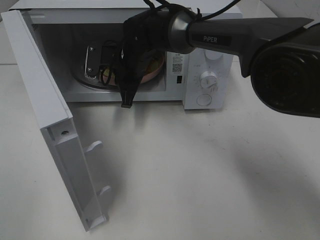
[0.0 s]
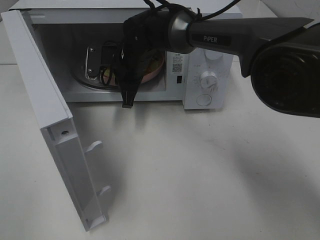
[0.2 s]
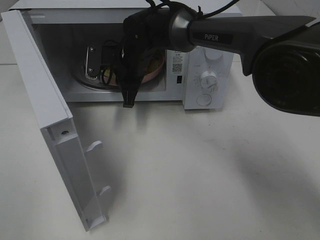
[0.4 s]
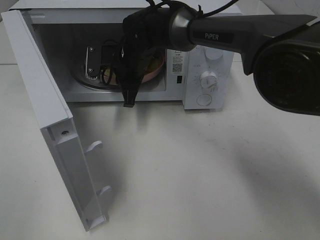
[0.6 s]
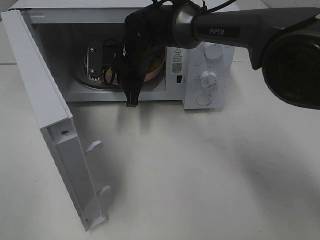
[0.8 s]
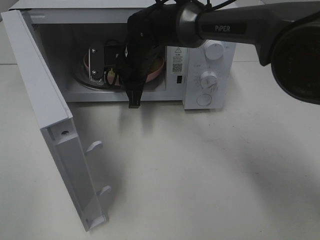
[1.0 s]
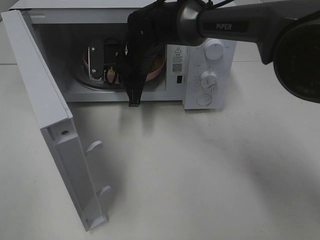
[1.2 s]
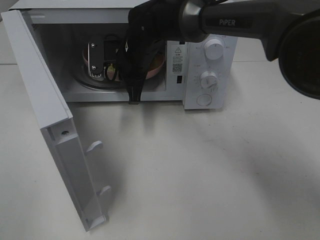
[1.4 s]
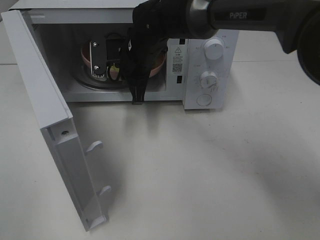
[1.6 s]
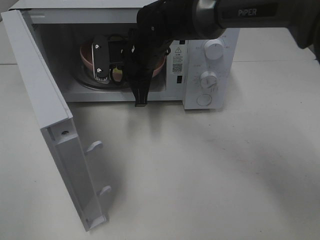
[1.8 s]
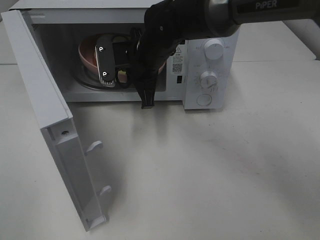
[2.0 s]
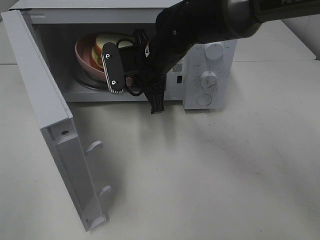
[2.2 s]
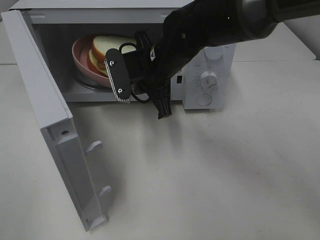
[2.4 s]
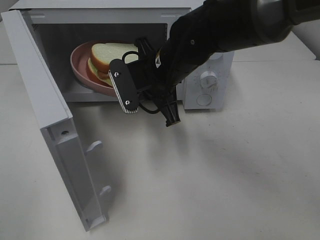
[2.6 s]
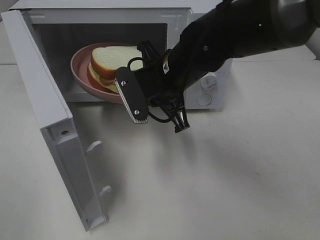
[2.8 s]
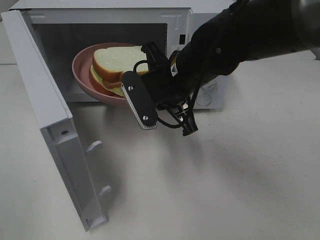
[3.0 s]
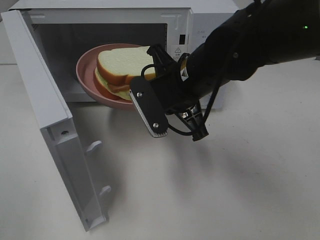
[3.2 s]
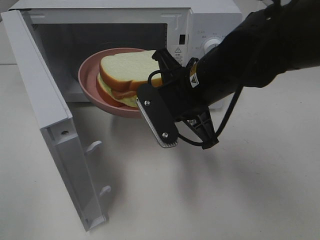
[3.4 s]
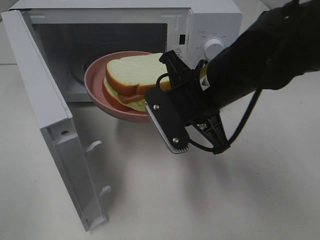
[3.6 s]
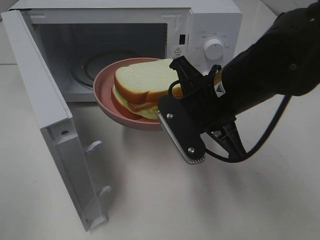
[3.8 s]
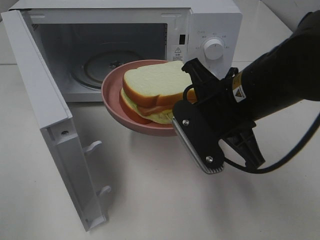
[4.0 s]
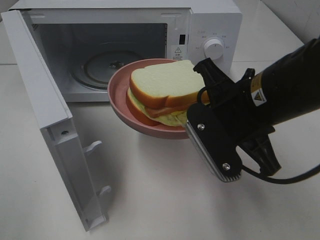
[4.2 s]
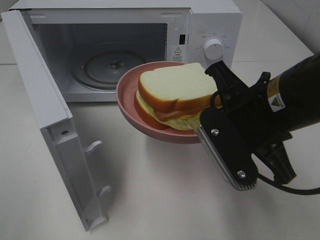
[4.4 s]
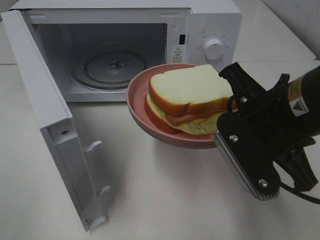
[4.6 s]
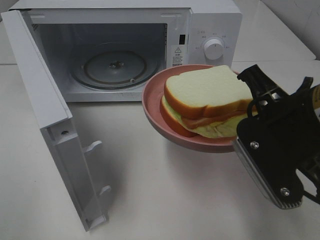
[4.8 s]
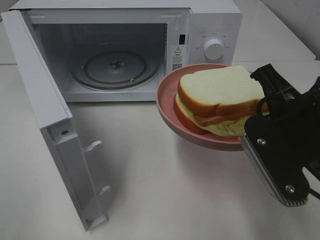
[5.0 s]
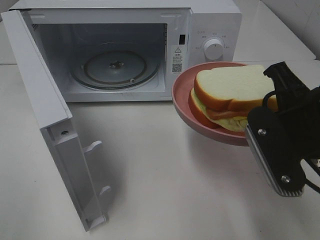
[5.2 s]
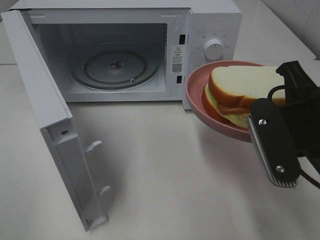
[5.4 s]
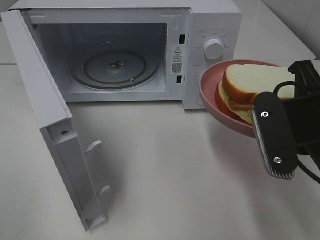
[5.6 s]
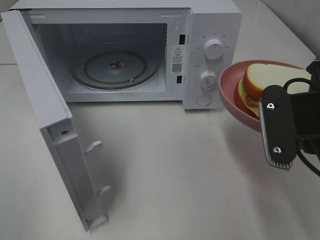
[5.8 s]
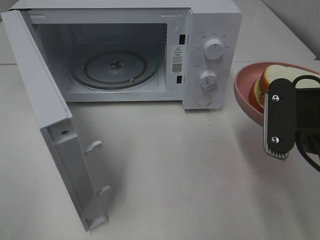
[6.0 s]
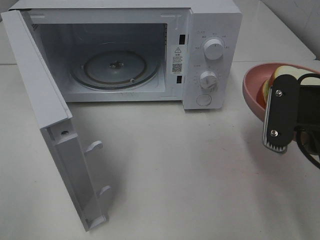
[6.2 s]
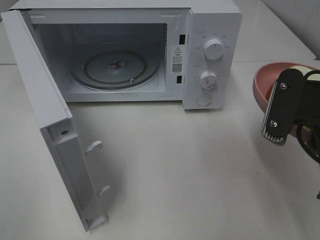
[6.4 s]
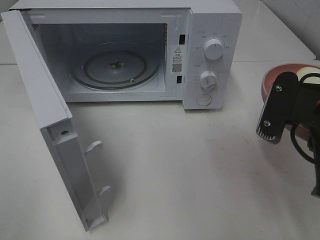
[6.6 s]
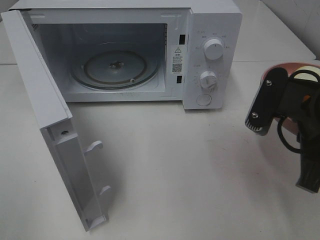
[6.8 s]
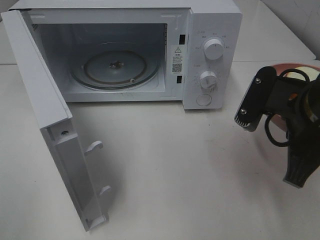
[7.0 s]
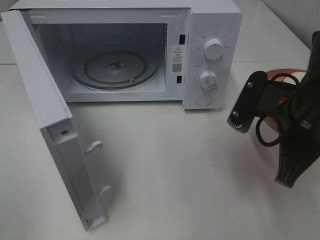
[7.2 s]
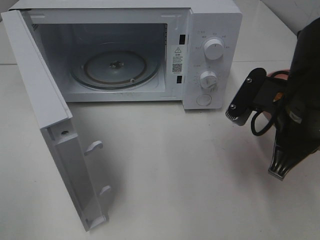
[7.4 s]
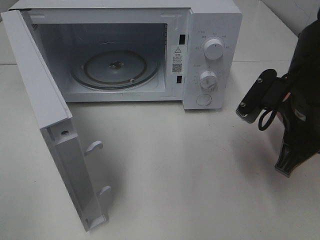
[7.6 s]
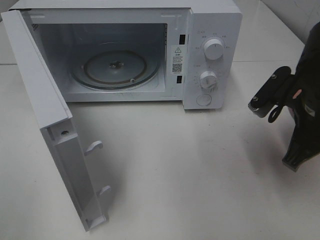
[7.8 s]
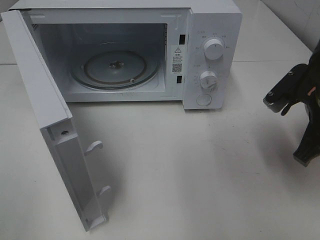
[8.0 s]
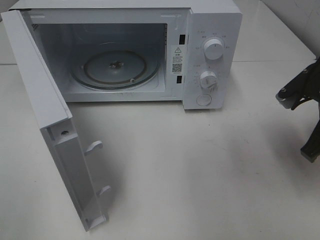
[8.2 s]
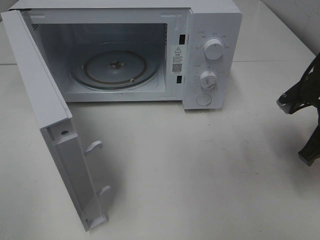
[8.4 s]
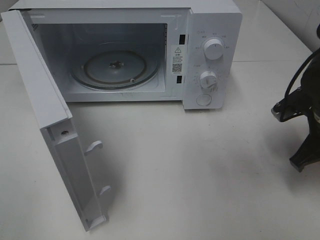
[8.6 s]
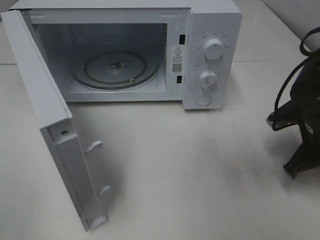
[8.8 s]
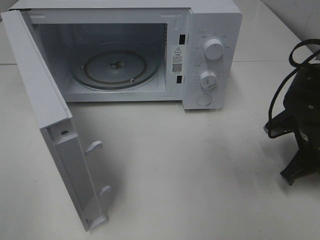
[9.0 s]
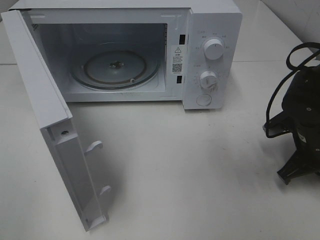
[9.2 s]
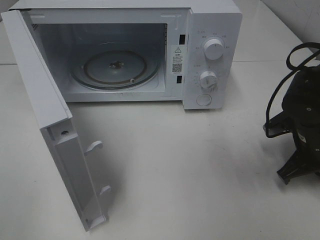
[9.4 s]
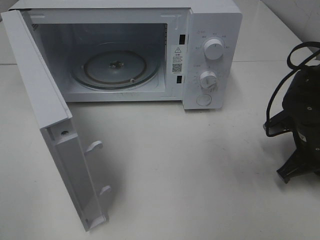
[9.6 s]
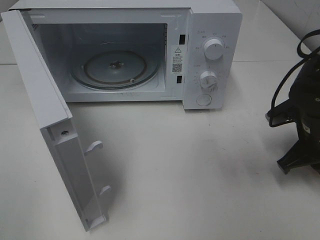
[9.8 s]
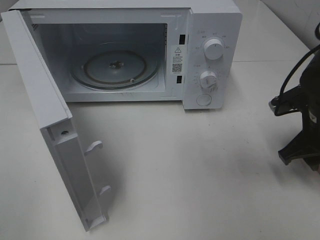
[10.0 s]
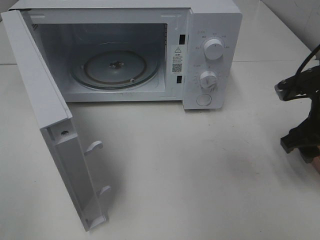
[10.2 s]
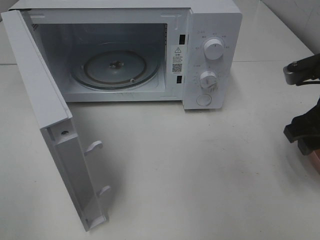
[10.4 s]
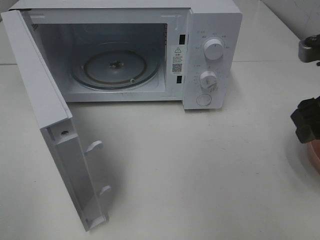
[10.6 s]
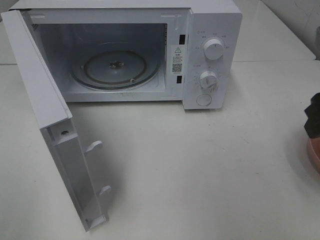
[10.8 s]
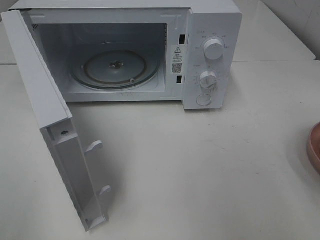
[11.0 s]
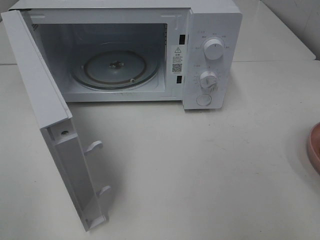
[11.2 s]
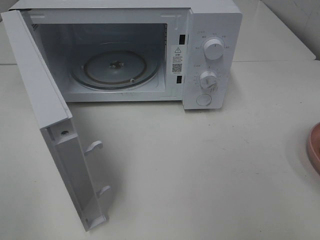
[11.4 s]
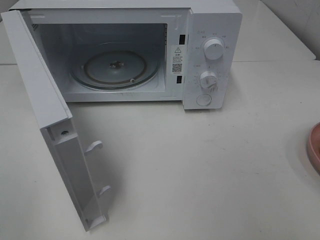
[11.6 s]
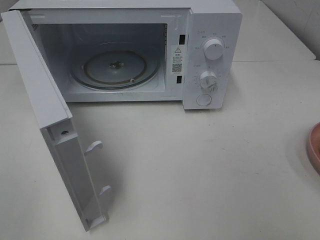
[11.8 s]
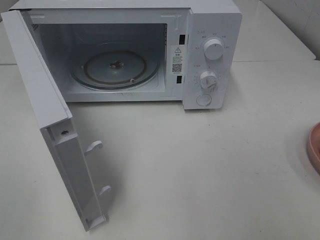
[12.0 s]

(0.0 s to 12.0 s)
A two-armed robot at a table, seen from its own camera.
Task of the whole recording: Heat Sandwich.
Step, 1.4 s - 9.8 s: Right hand: place the plate on the table.
0.0 s - 1.6 s: The grippers move only a little.
1.6 s - 3.0 s: The right gripper goes some 15 cm backward and to the right.
3.0 s - 4.4 s: The right gripper shifts about 15 cm backward and to the right.
4.4 s - 6.0 s: The right gripper moves to the right, about 5 cm.
6.0 s - 7.6 s: The right gripper shifts some 5 cm forward.
7.6 s - 9.0 s: The right gripper heads downward and to the right, covering some 10 cm.
9.0 s - 10.4 s: The right gripper moves upward, approximately 10 cm, and opens its fingers.
10.4 s - 12.0 s: The right gripper travels backward by some 20 cm.

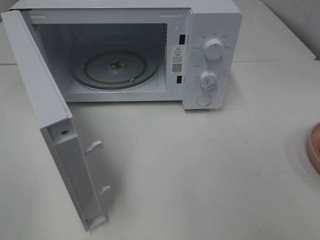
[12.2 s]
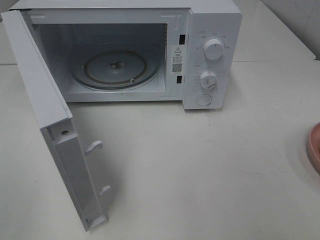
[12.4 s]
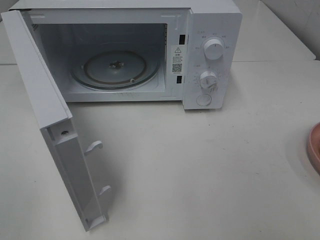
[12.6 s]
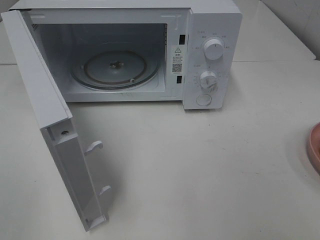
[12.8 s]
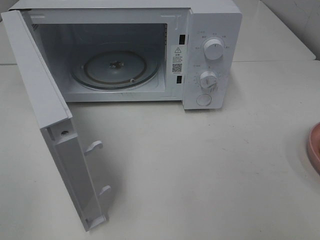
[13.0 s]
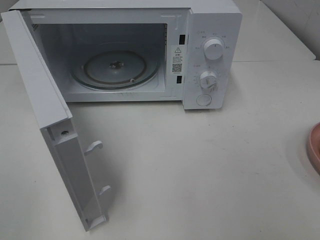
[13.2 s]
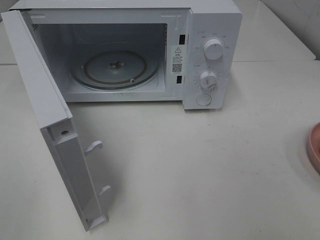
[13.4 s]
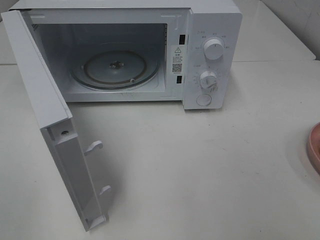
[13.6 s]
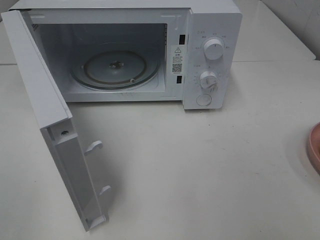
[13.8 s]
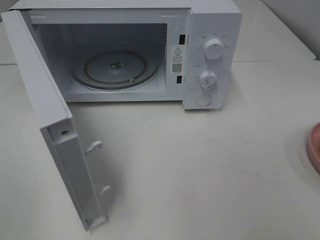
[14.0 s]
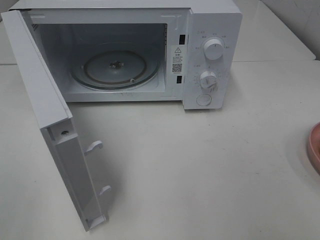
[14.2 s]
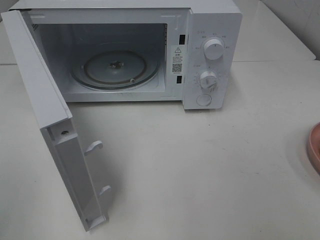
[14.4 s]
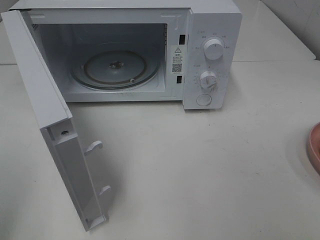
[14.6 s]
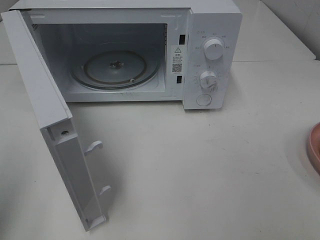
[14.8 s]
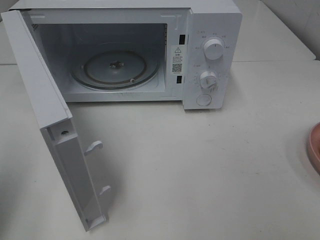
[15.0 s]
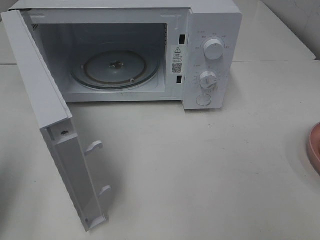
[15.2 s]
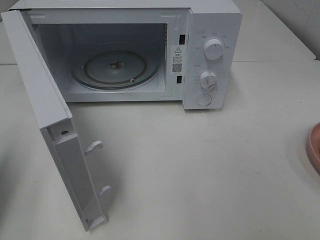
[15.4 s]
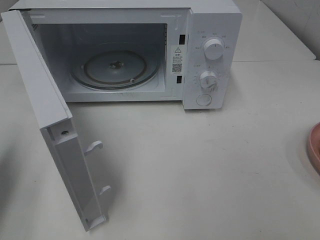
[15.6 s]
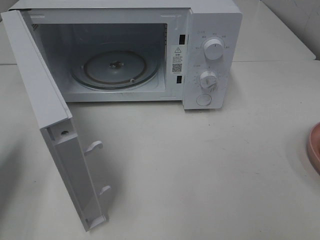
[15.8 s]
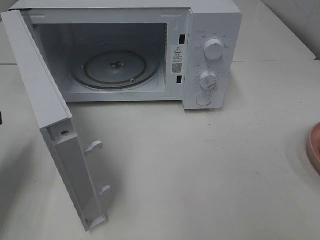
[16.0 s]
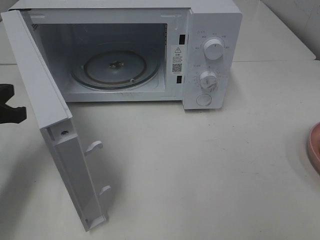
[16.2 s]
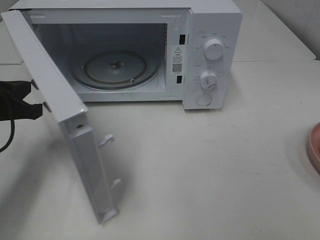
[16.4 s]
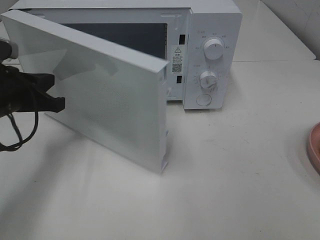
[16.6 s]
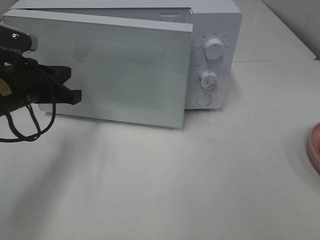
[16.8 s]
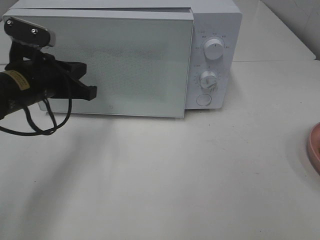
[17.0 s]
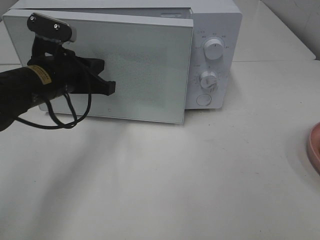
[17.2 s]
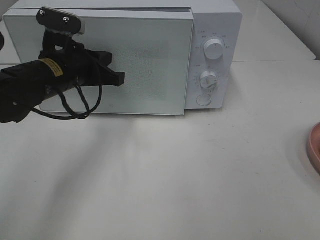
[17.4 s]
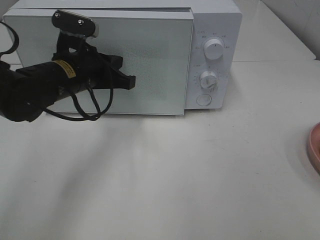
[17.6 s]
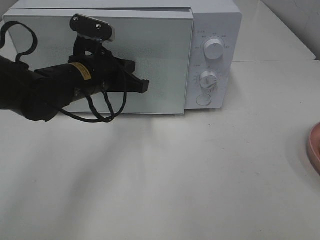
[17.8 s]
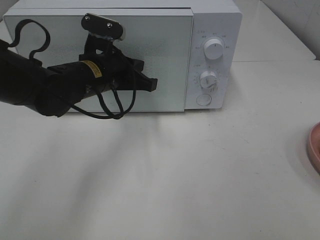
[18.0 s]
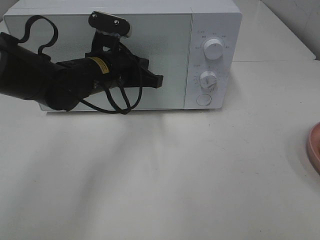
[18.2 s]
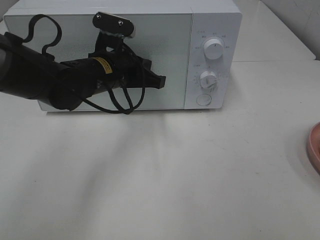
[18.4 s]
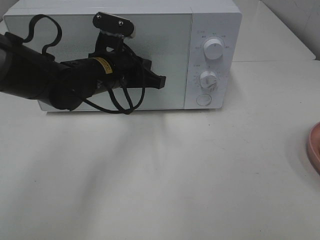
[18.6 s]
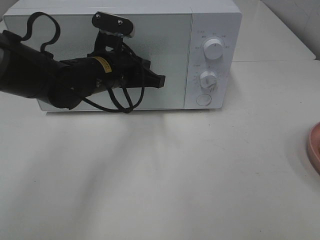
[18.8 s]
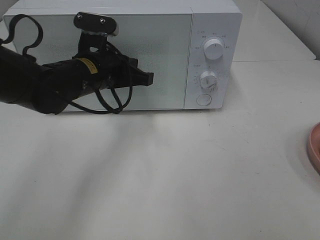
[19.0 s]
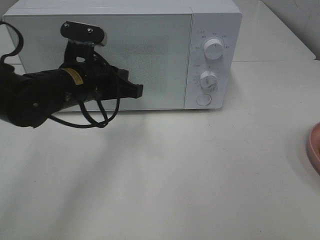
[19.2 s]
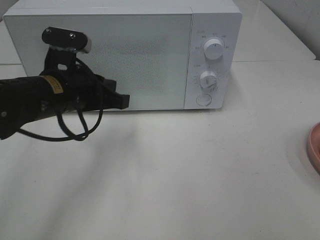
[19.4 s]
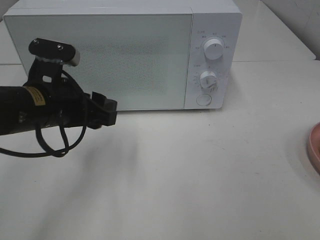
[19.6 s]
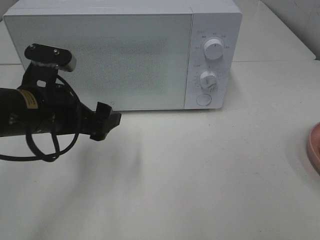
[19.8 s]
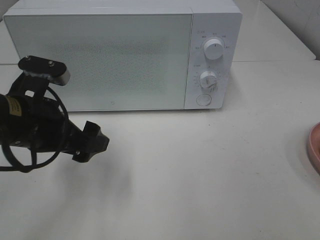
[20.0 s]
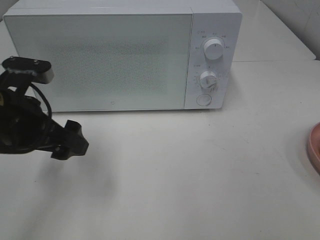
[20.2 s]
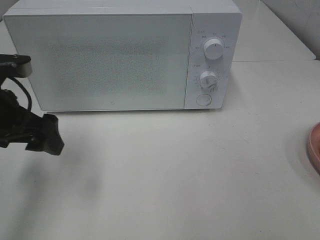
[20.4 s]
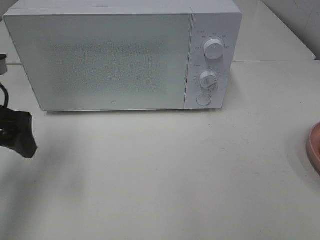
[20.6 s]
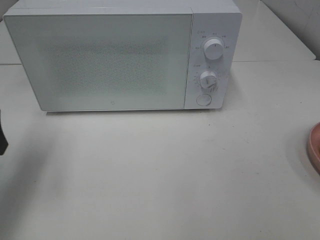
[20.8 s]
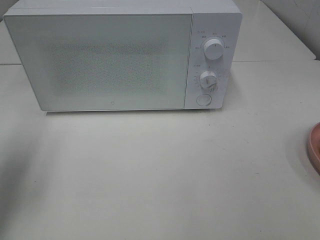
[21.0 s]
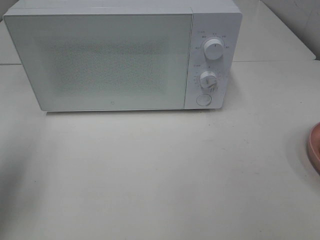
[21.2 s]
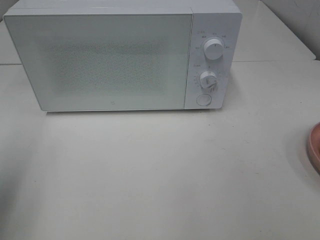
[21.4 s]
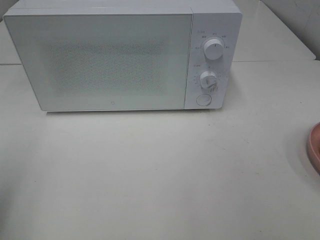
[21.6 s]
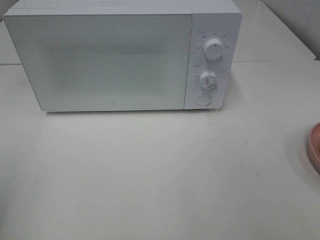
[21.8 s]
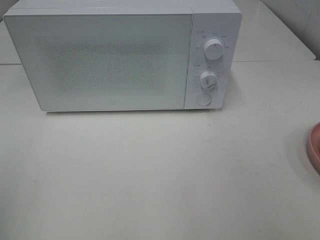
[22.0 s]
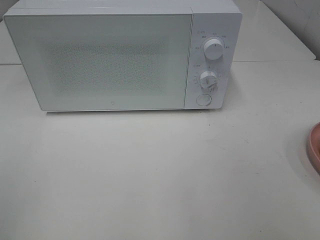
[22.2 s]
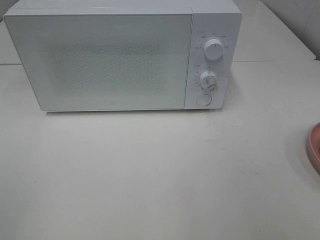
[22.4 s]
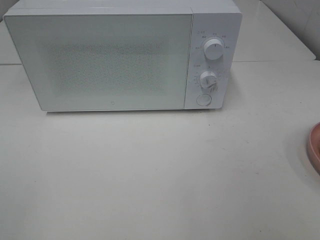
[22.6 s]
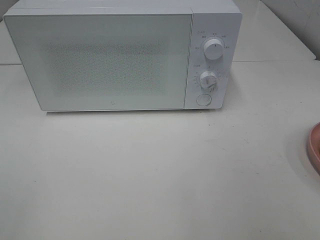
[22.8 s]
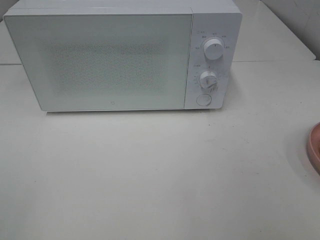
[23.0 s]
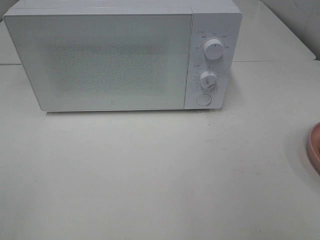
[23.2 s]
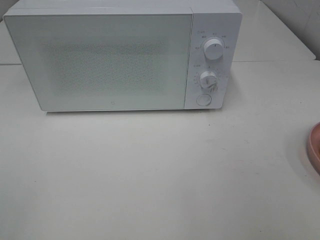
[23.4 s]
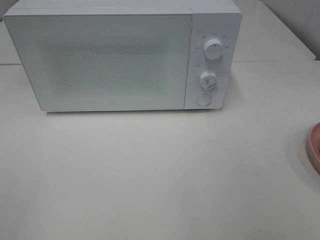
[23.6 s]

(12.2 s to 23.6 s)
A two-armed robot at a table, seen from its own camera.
Task of the whole recording: Heat Sandwich.
Step, 12.2 s - 19.4 s: Left hand: close the microwave door.
13.6 s - 15.0 s: The left gripper is displaced forward by approximately 10 cm, and closes.
15.0 s - 16.4 s: The left gripper travels forward, downward and to the right by about 20 cm.
16.4 s - 17.8 s: The left gripper goes some 15 cm to the right and forward.
17.8 s - 19.4 s: The left gripper moves backward, some 5 cm.
19.4 s - 20.8 s: The left gripper moves to the left and upward, approximately 15 cm, and opens its fingers.
20.8 s - 22.2 s: The left gripper goes roughly 20 cm backward.
